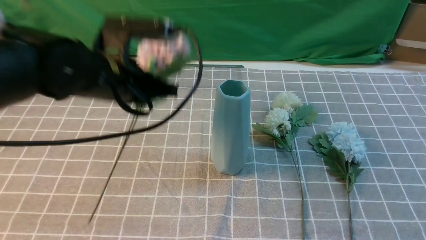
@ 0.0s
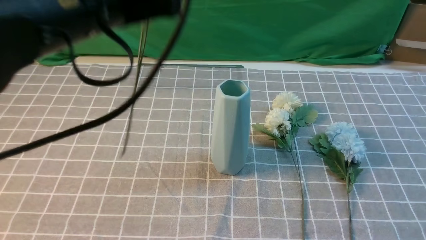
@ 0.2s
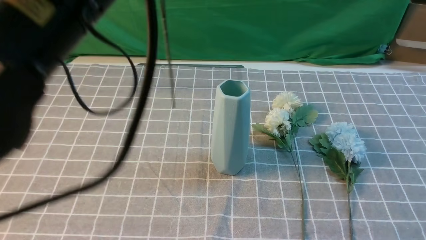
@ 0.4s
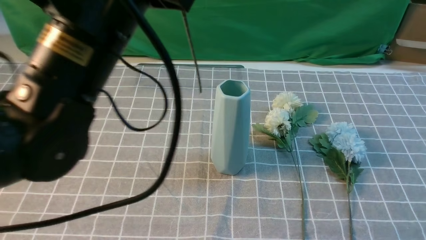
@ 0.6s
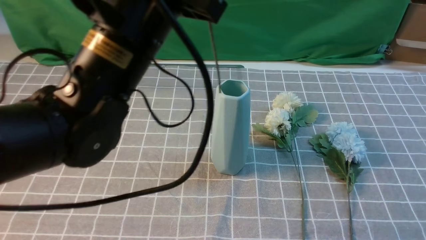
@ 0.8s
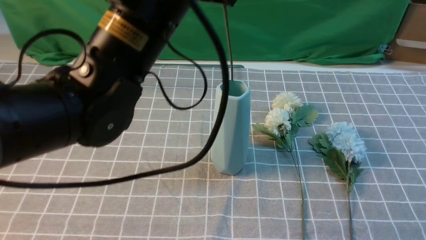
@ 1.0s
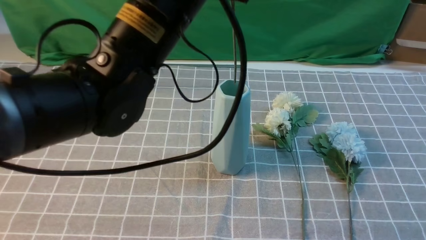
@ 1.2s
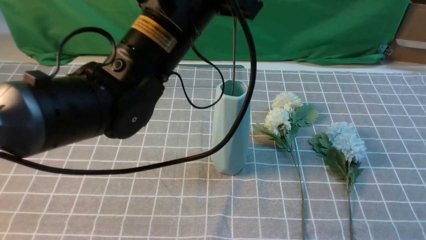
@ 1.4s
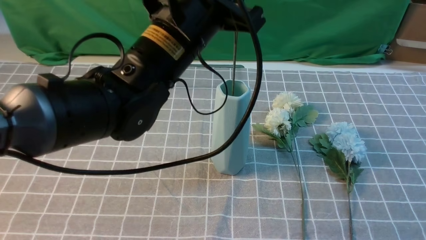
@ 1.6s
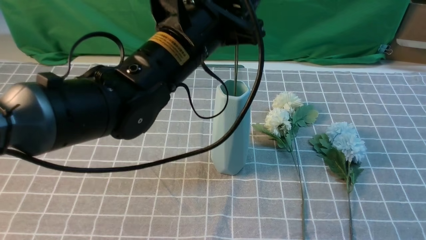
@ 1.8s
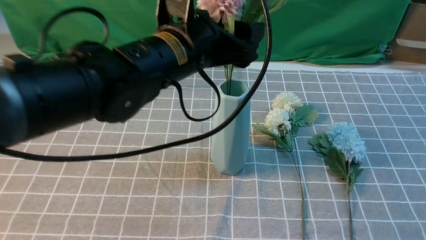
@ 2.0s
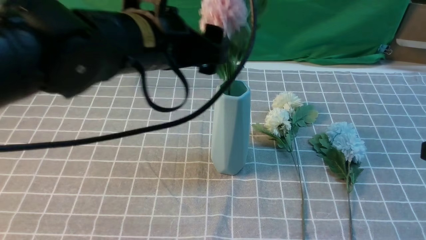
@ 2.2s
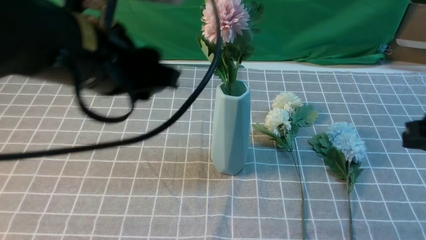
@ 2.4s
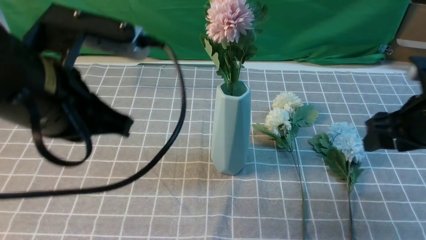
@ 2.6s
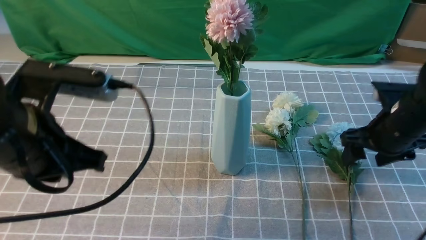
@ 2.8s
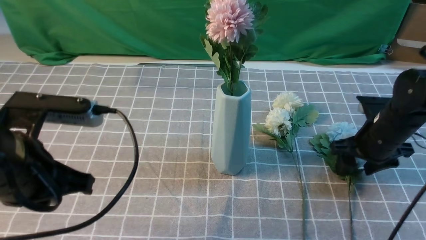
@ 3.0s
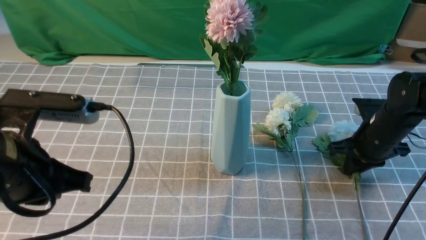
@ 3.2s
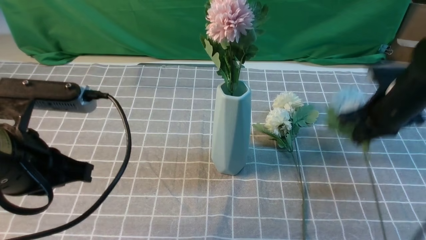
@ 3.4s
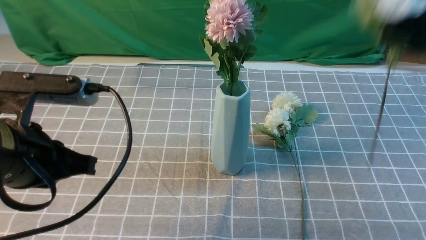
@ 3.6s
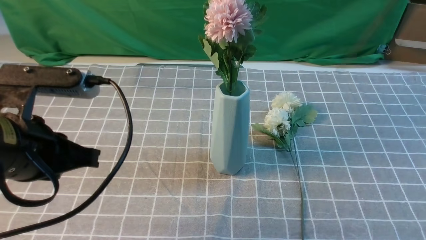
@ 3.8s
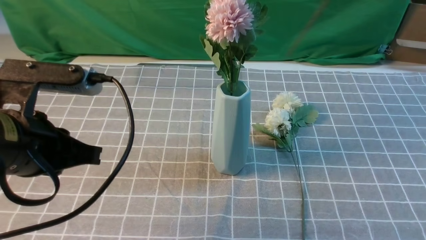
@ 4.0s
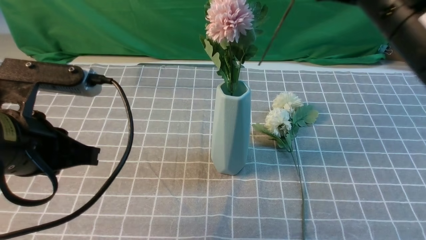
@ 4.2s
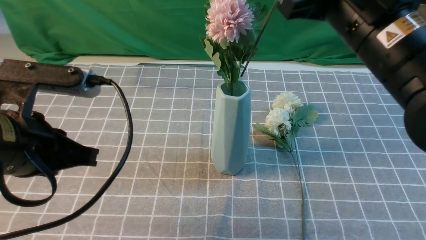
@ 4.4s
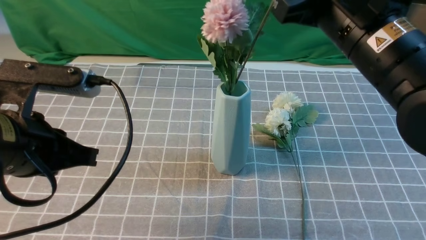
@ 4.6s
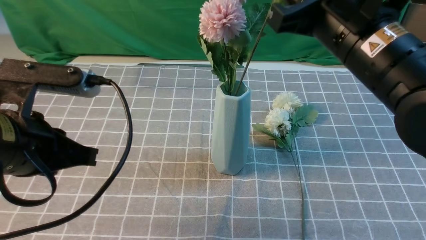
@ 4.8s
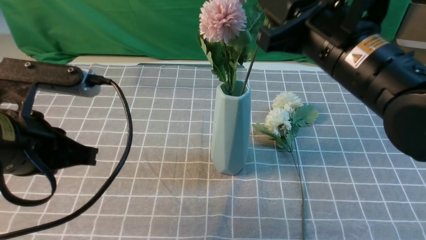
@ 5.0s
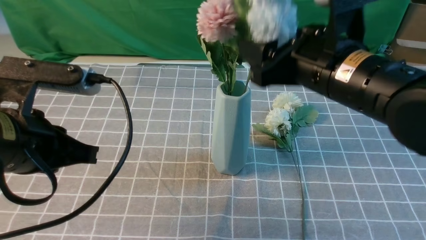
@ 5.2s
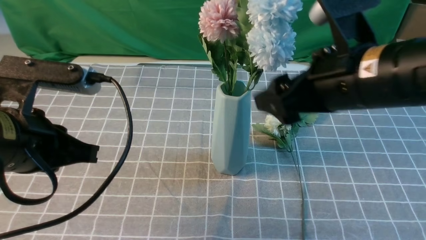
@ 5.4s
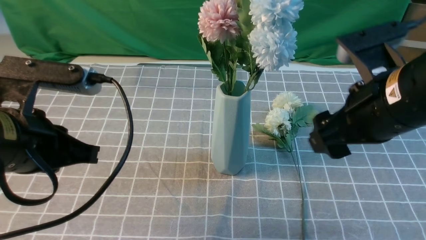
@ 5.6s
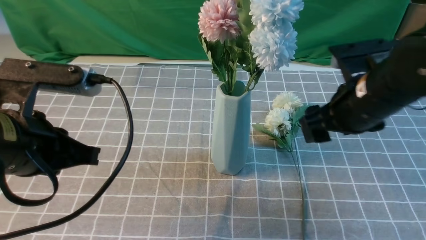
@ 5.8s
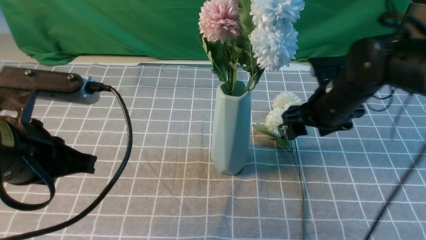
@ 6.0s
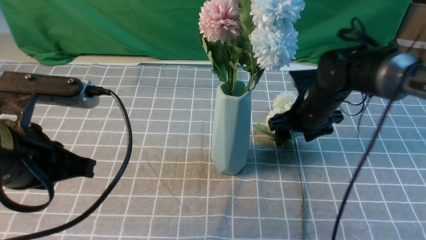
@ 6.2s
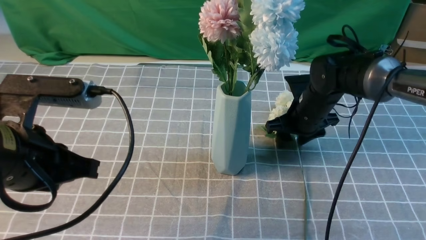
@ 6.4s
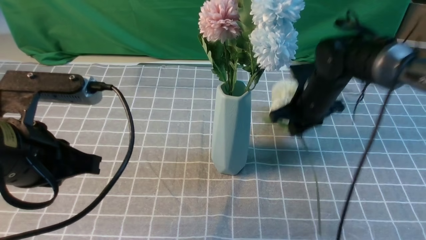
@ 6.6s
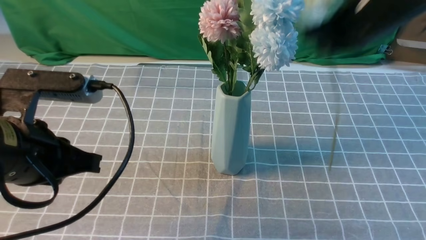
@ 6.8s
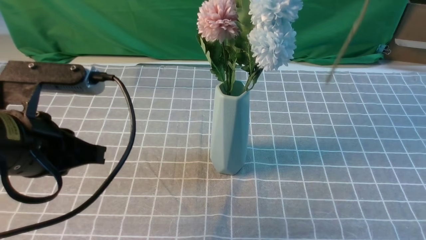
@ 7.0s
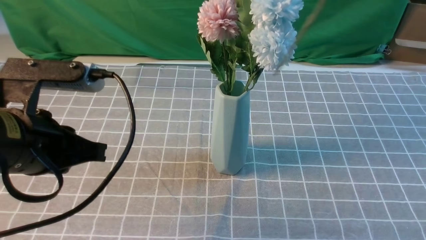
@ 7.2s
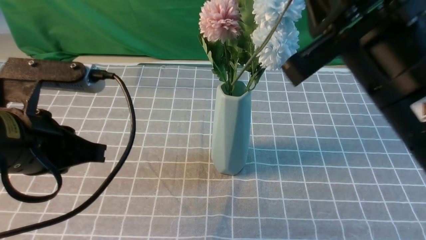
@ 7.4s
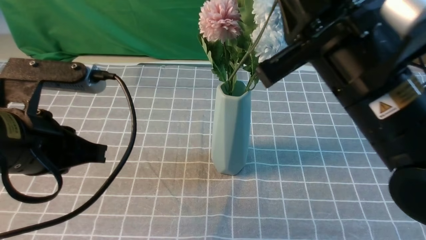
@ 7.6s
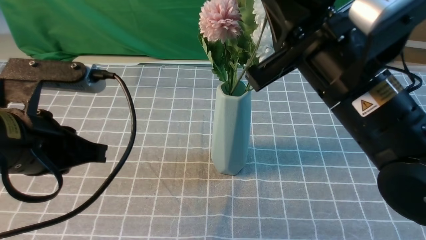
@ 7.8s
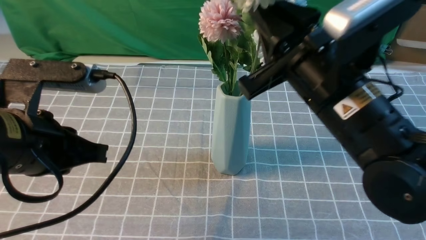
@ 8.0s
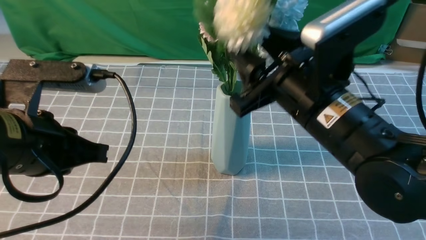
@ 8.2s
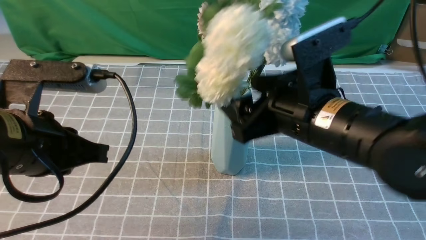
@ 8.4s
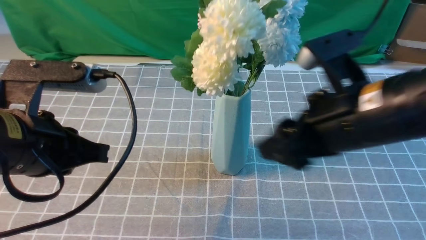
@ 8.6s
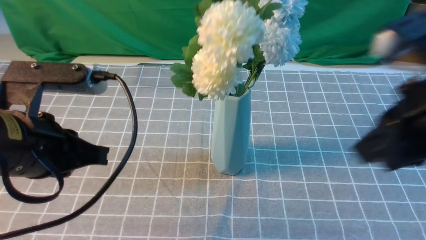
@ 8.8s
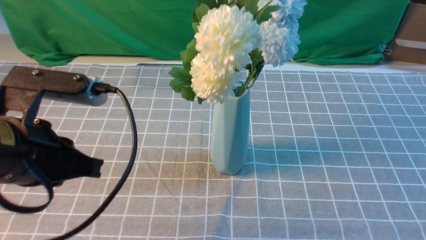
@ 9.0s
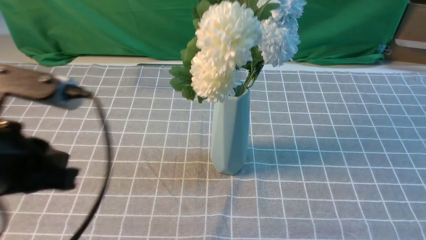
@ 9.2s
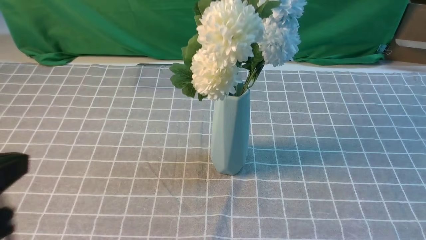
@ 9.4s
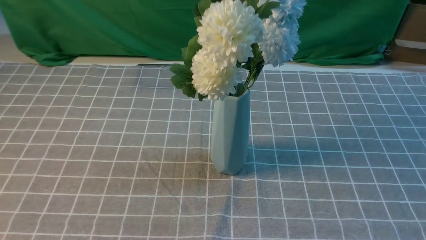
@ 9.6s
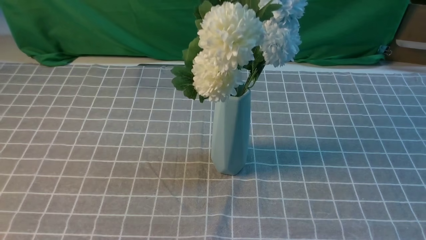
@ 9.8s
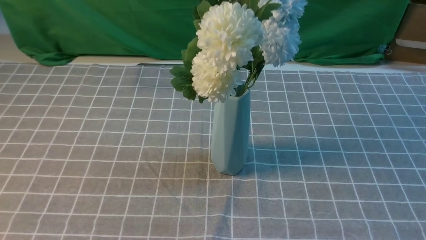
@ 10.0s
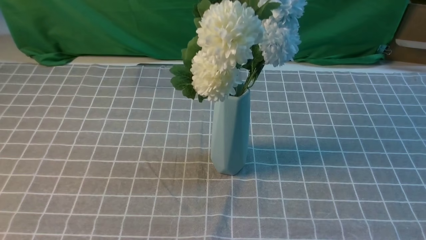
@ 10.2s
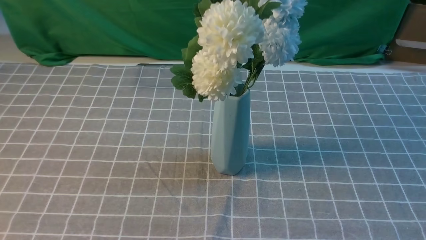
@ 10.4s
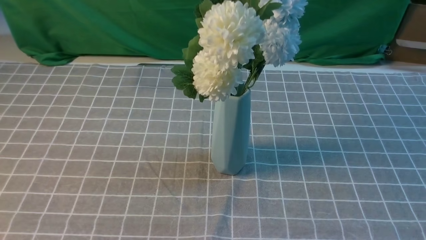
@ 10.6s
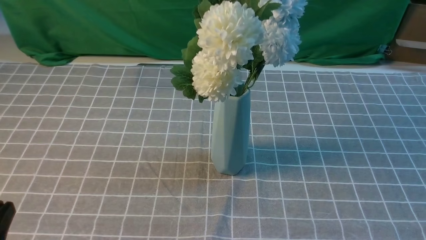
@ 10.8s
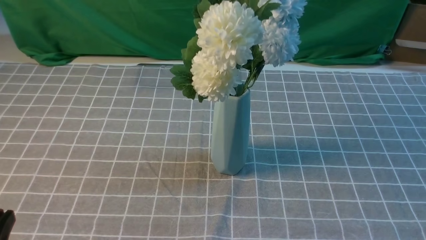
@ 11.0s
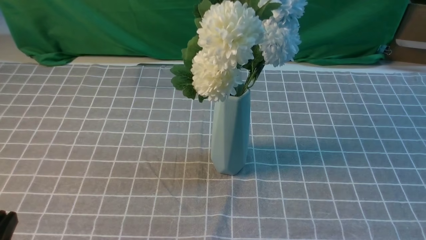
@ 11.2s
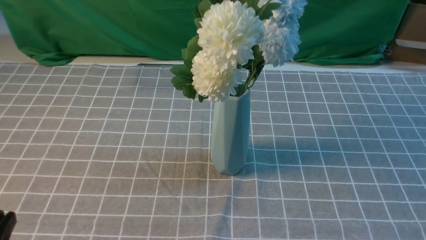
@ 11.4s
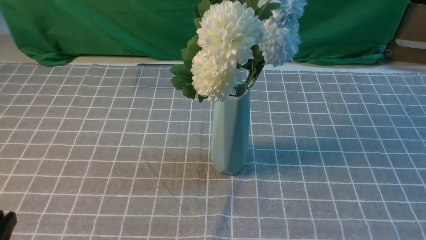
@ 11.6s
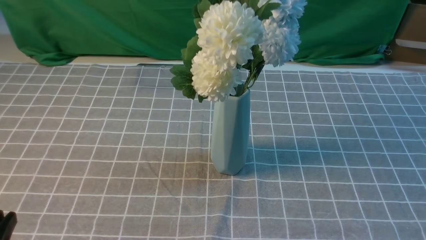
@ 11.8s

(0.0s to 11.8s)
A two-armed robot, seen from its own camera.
Task of the whole recording: insert the flowers into the vase on the table with the grey tablecloth.
Step, 0.0s - 2.2s: use the left arm to insert the flowers into the vase.
Step, 2.4s - 3.2s: use the right arm to grab a bunch of fresh flowers.
Step, 3.4s - 5.4s: use the right arm to insert the flowers into the vase.
Step, 5.6s - 6.4s: use the right arm to grab a bunch of fresh flowers.
Step, 6.6s - 8.4s: use the right arm to insert the flowers into the vase.
0.0s - 1.4s: The left gripper travels to the right by about 5 cm.
1.4s - 3.0s: The left gripper is displaced to the left, backward and downward by some 20 cm, and opens, then closes once more. Meanwhile the right gripper travels forward and downward by some 30 cm, and opens up.
3.0s - 4.4s: The right gripper shifts approximately 25 cm upward, to the left and backward, and closes its fingers.
4.4s - 6.0s: The right gripper travels downward and forward by roughly 20 cm, and opens.
6.0s - 7.4s: The right gripper goes up and down, approximately 30 cm each way, reversing 2 times, and closes its fingers.
7.4s - 8.8s: The right gripper is displaced to the right by approximately 5 cm, and opens, then closes again.
8.8s - 10.4s: The left gripper heads backward, covering about 15 cm, while the right gripper shifts some 20 cm backward, to the right and downward.
10.4s - 11.8s: The left gripper travels downward by about 10 cm.

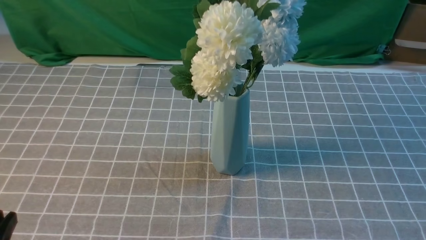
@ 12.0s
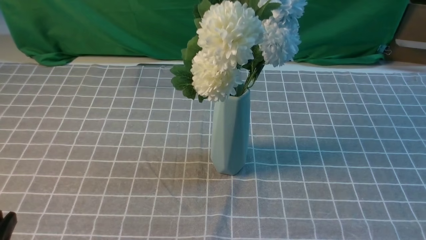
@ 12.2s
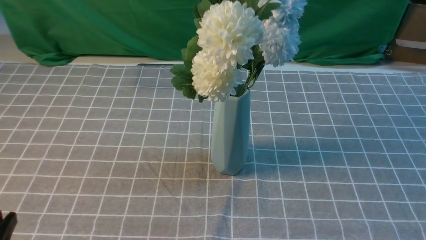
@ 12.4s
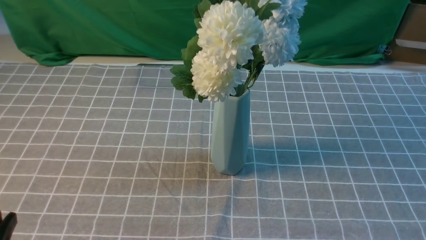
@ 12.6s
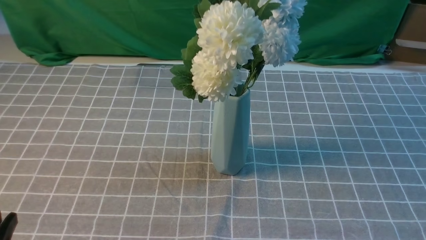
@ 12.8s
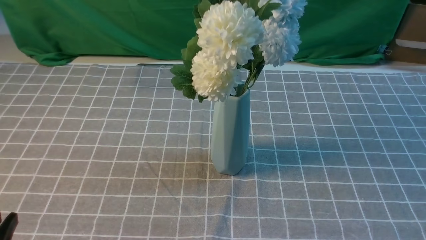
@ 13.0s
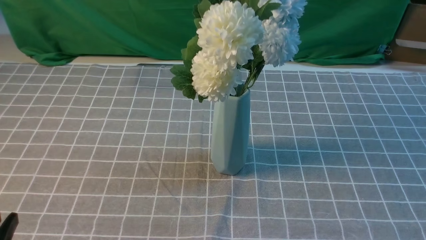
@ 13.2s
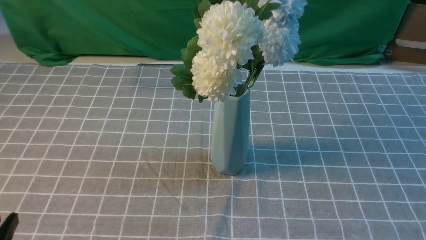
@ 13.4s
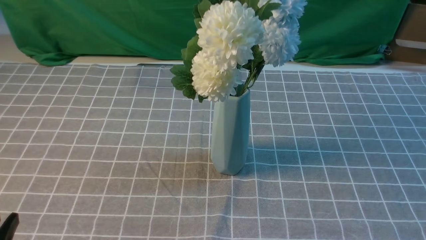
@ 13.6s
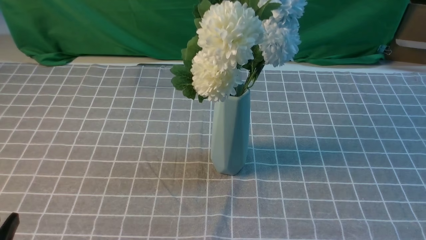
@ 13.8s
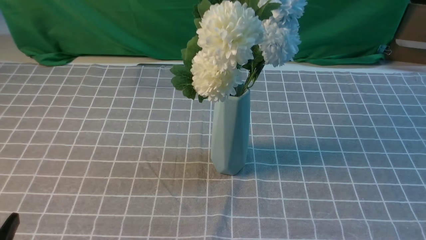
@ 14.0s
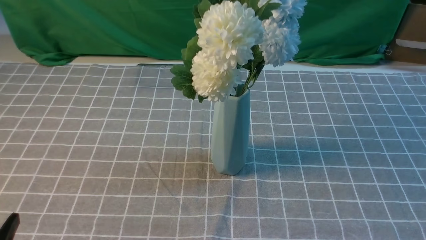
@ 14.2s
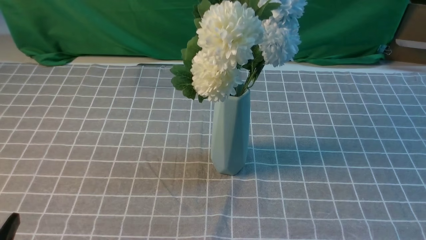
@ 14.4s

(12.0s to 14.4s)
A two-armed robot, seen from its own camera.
Task of the whole recording: insert the flowers into the vase on the table with the grey tablecloth.
13.2s - 14.4s: Neither gripper changes place.

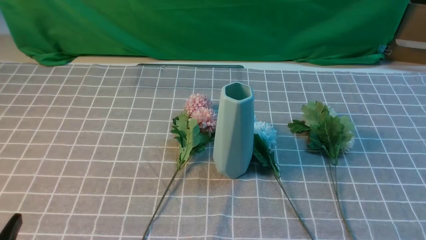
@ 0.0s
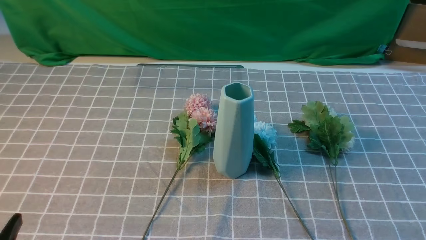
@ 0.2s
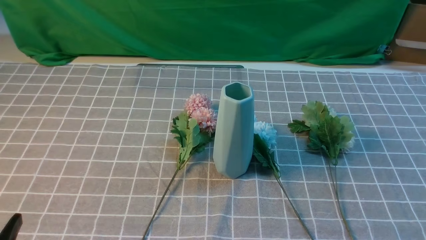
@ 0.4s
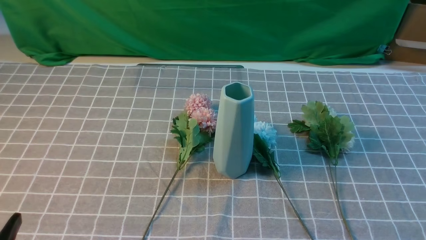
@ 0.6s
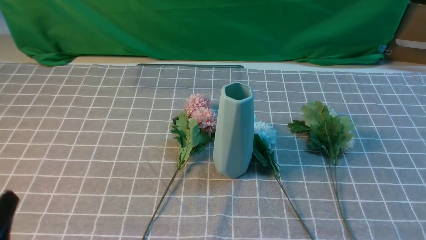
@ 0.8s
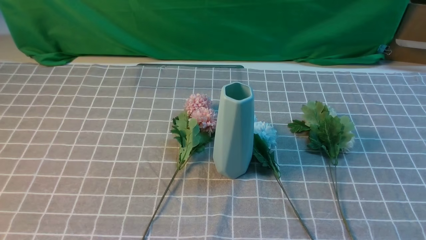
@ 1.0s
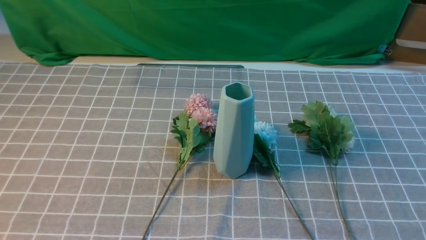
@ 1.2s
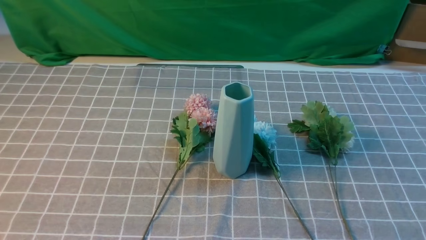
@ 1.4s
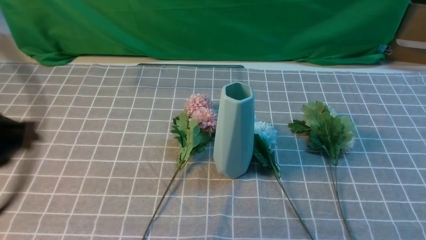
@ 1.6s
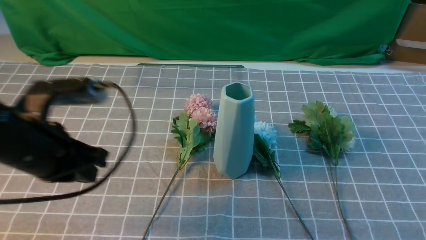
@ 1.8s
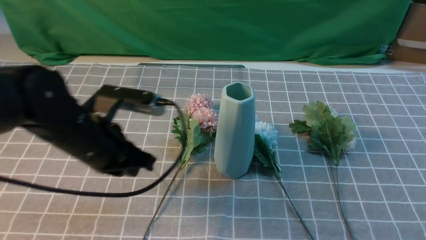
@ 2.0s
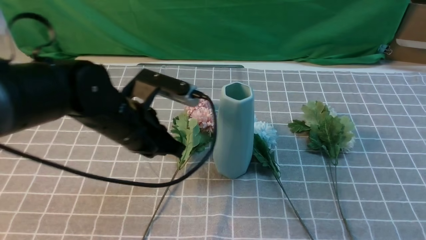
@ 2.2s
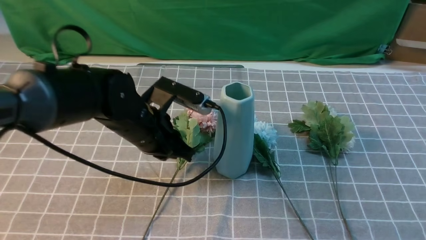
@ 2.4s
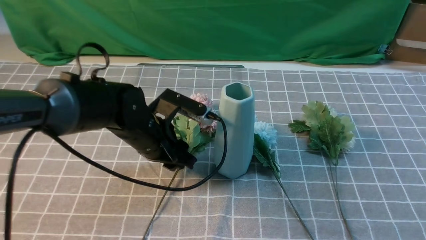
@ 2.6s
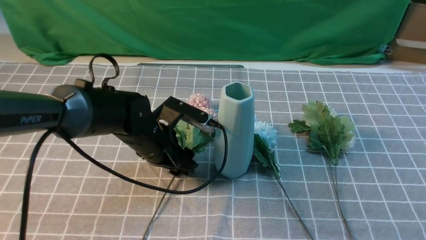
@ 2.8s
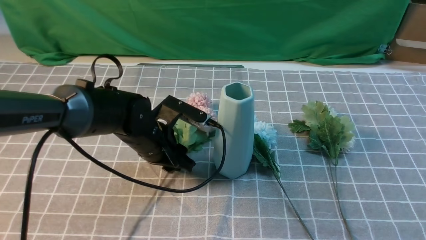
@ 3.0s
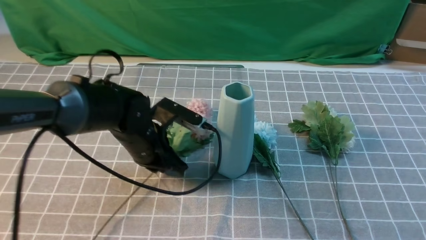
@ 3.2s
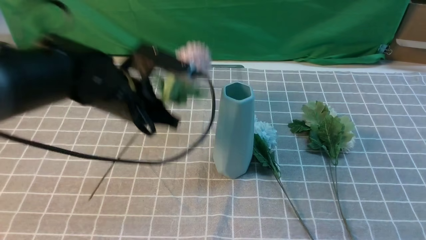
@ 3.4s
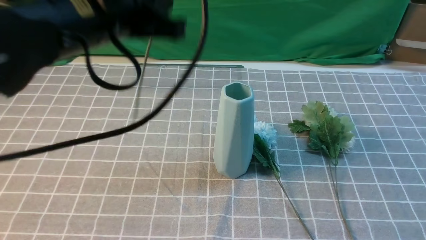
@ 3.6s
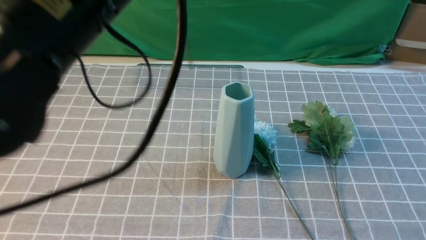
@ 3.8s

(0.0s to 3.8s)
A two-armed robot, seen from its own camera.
Task of the whole recording: insert the flowers into the vase on the table with the grey tablecloth.
Step, 0.0s - 2.8s: use the left arm to grab a bunch of fresh flowers.
1.2s - 2.6s: The left gripper moves forward, to the right and downward, about 35 cm, and opens up, while the right gripper travels upward and forward by approximately 15 cm, and closes its fingers.
2.6s - 3.8s: The left gripper shifts about 25 cm upward, and closes its fingers.
